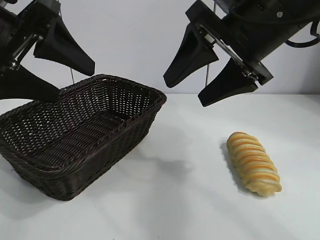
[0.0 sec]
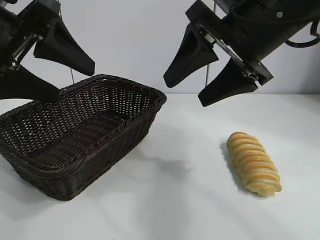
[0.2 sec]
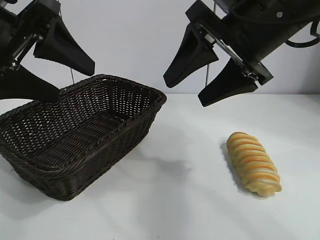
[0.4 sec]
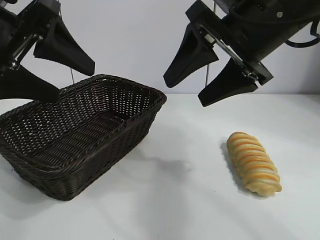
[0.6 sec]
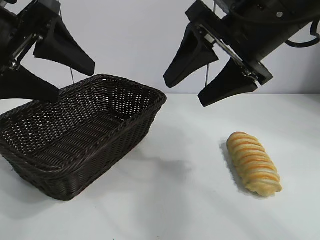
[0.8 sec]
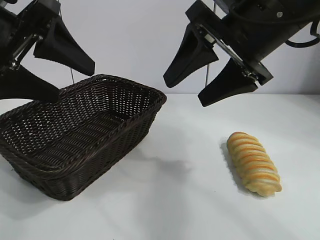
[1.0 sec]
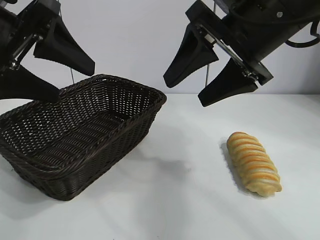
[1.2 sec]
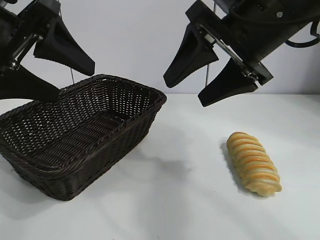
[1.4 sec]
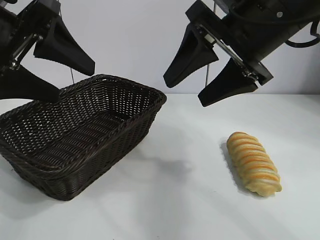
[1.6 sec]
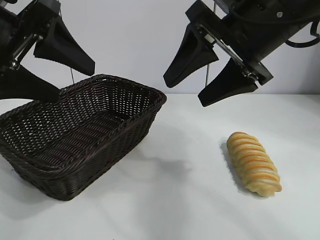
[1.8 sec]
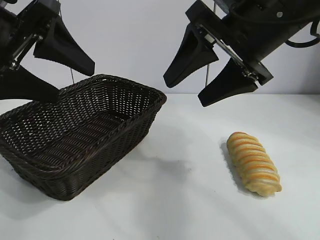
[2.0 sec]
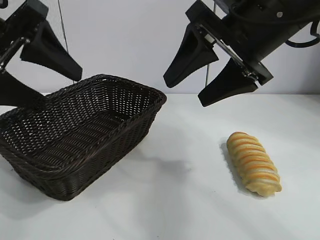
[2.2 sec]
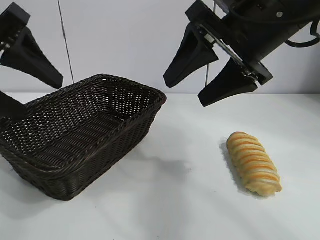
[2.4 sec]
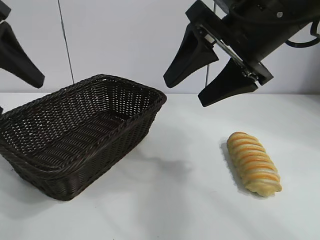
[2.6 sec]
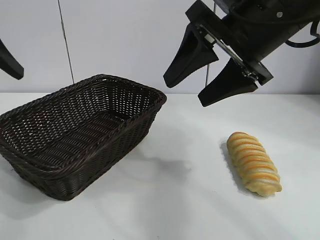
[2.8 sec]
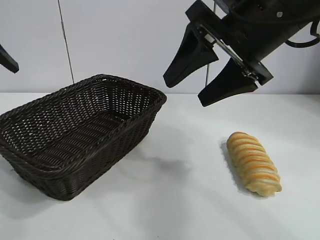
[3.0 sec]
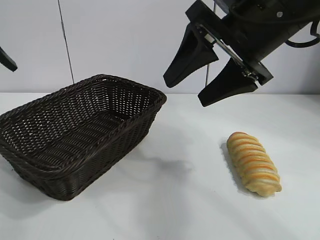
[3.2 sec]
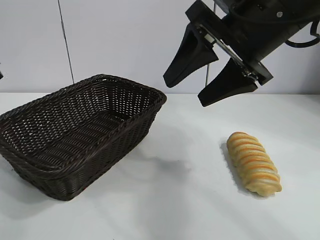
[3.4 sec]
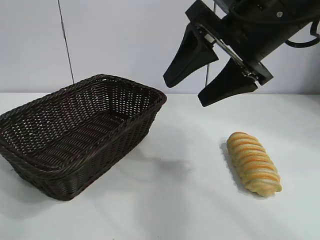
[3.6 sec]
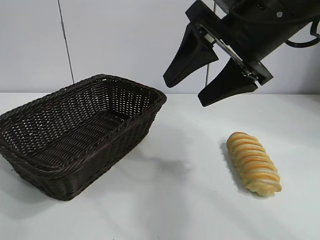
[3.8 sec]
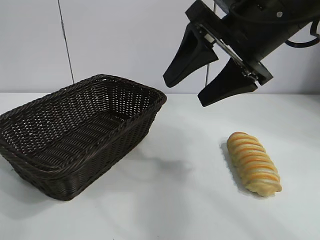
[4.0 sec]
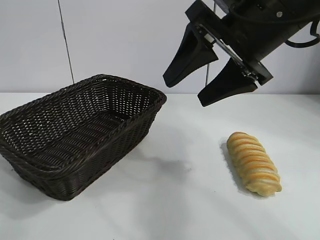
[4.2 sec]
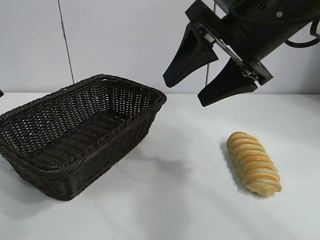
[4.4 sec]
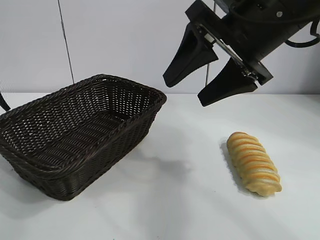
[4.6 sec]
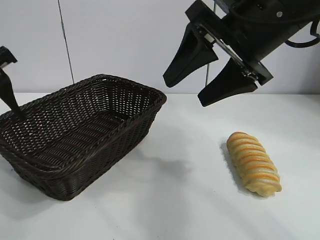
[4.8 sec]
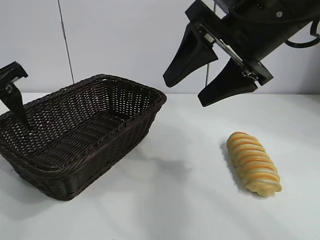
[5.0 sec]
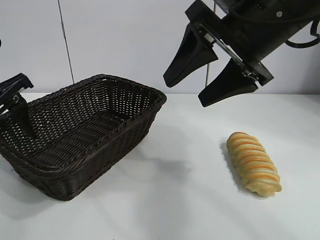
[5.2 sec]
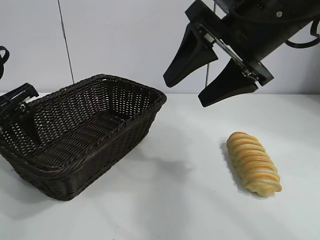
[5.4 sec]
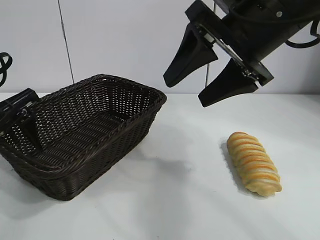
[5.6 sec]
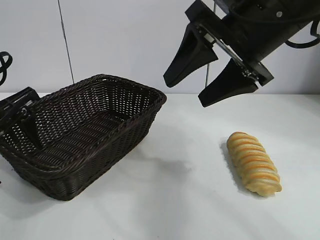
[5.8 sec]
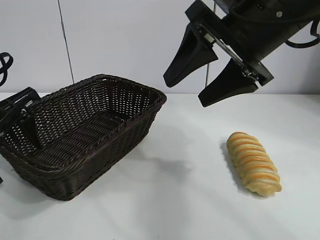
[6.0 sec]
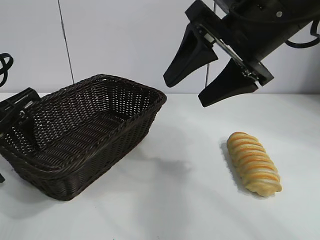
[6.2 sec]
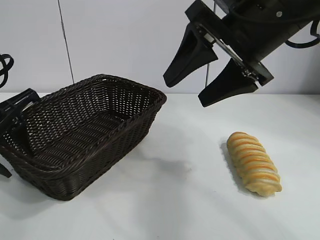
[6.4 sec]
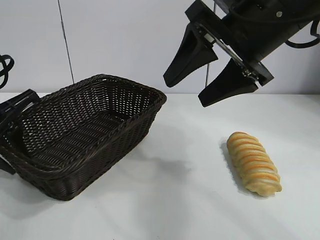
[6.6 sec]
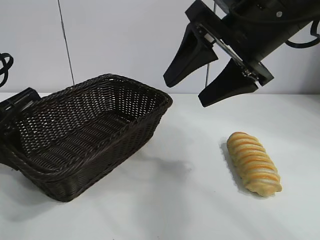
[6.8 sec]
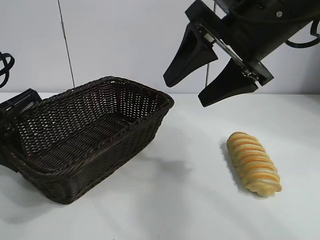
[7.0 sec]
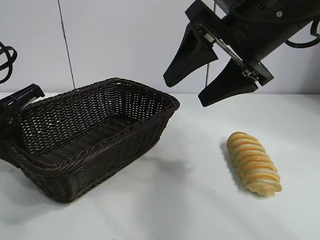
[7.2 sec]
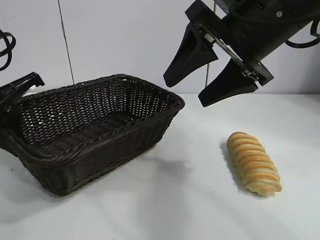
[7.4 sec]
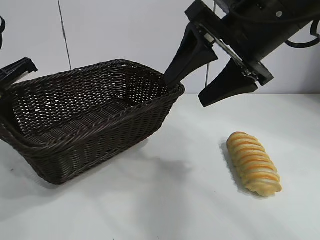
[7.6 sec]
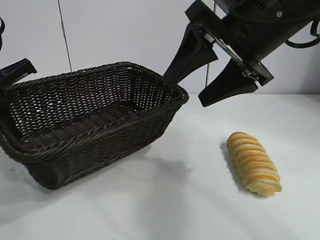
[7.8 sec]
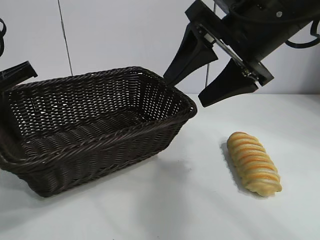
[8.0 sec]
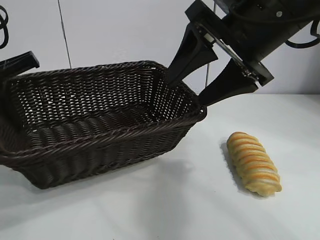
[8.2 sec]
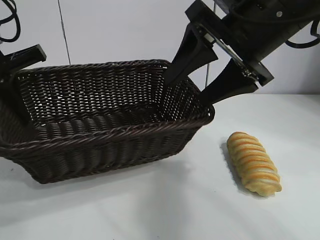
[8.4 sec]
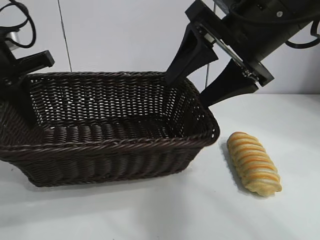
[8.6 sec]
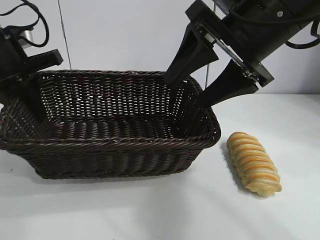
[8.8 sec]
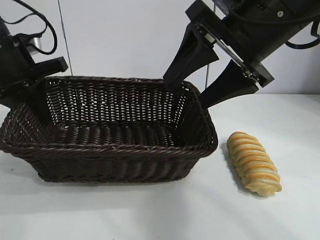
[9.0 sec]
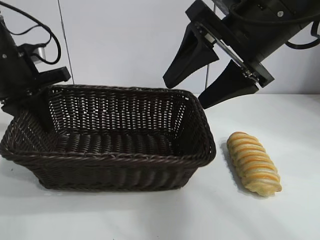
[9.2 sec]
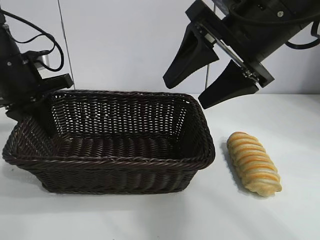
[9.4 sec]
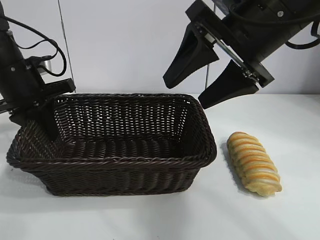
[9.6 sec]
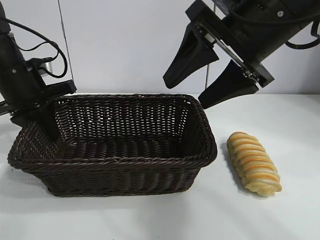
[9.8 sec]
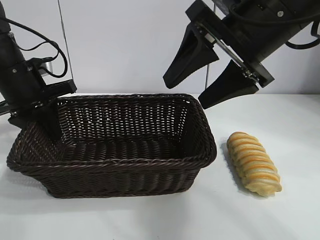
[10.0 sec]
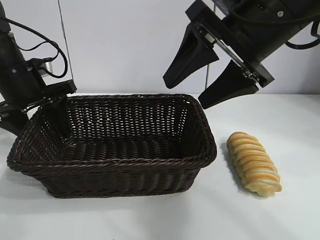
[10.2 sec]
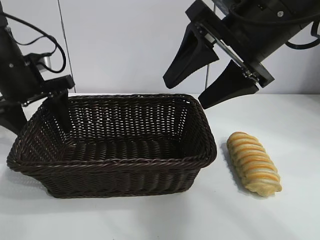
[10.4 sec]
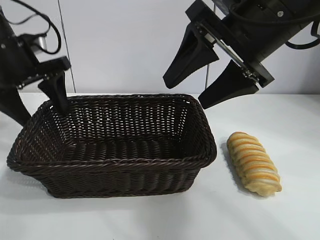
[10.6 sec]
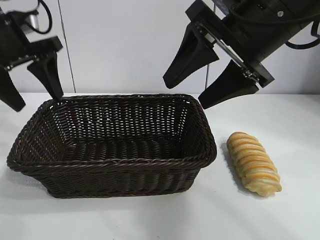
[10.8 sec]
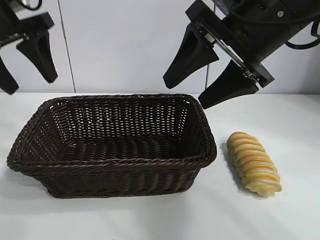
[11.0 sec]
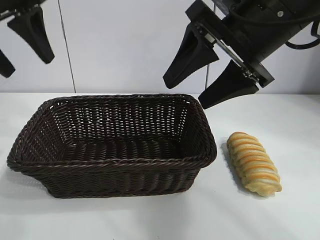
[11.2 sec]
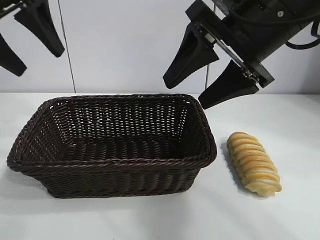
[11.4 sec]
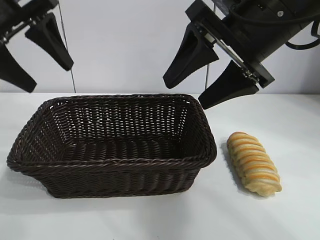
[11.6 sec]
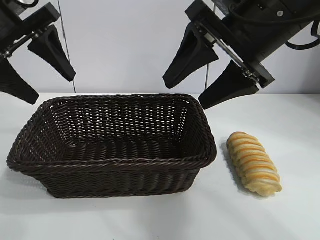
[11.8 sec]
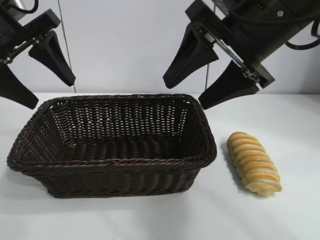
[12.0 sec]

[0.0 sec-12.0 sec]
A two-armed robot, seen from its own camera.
Task of the whole recording: pick up the long bread and put it into the basket.
Step, 2.0 sec to 6.8 sec: Grasp the basket with the left gripper.
Step, 7.2 sec to 10.2 sec: Place the basket in the center of the table with the left gripper.

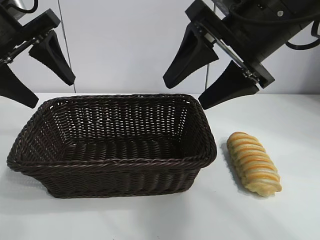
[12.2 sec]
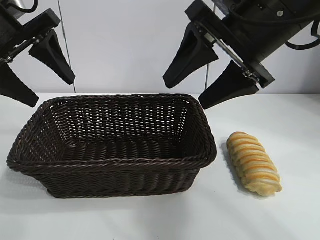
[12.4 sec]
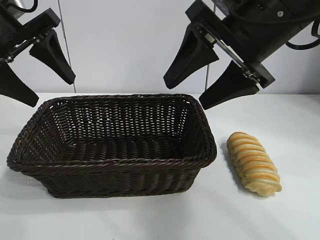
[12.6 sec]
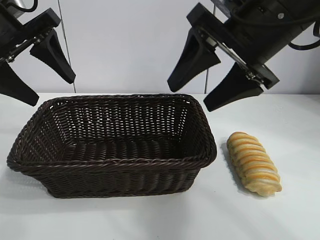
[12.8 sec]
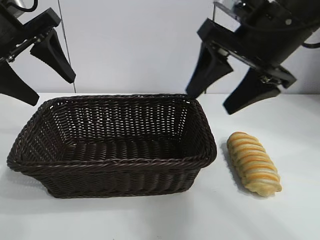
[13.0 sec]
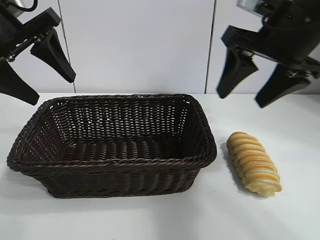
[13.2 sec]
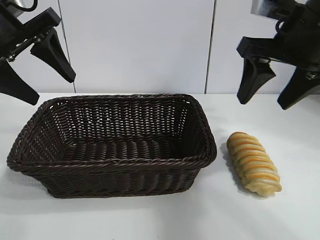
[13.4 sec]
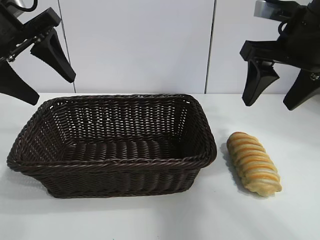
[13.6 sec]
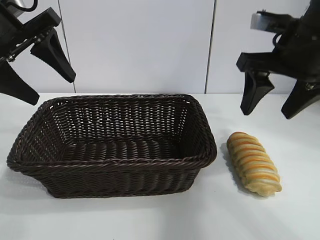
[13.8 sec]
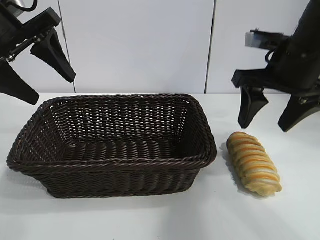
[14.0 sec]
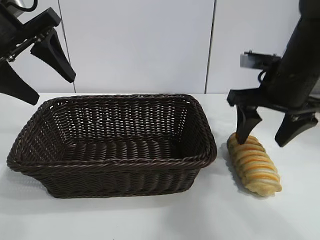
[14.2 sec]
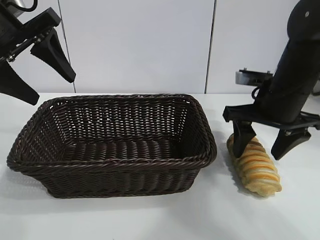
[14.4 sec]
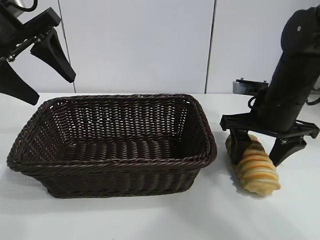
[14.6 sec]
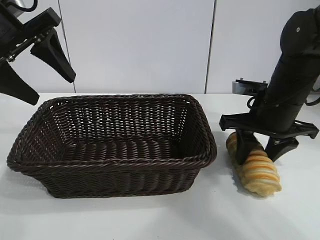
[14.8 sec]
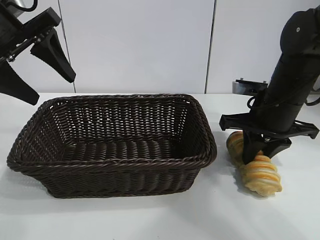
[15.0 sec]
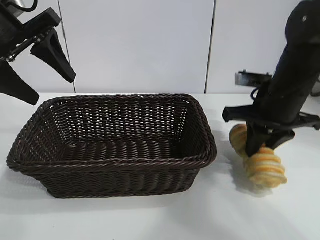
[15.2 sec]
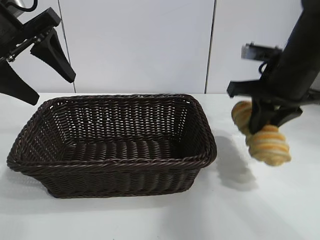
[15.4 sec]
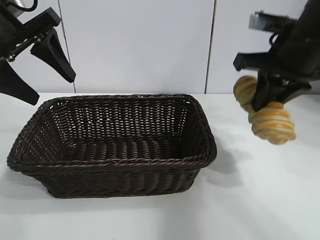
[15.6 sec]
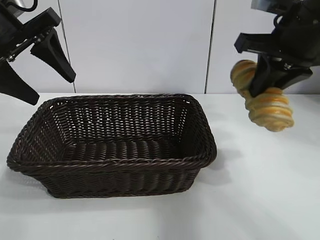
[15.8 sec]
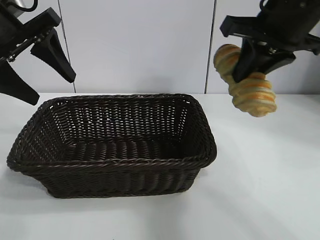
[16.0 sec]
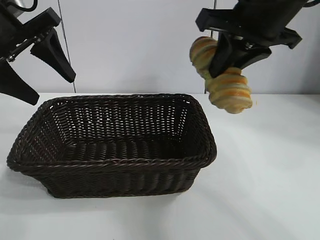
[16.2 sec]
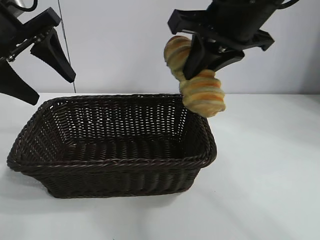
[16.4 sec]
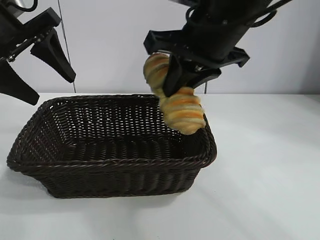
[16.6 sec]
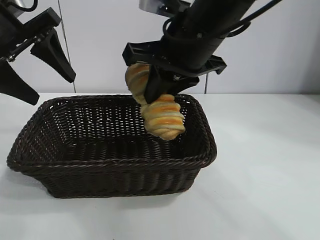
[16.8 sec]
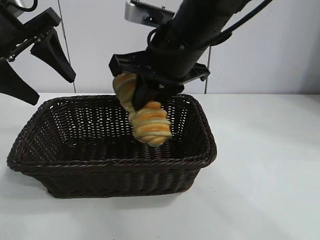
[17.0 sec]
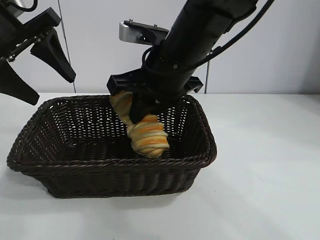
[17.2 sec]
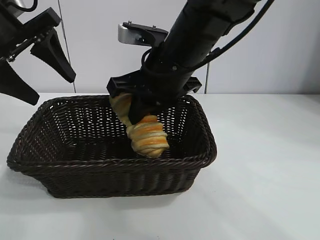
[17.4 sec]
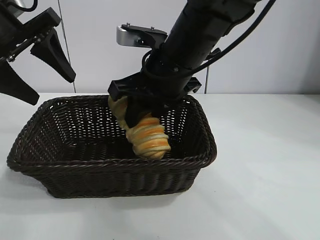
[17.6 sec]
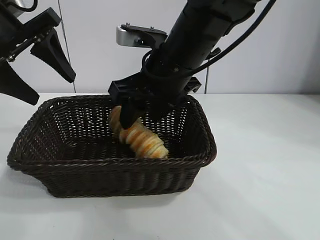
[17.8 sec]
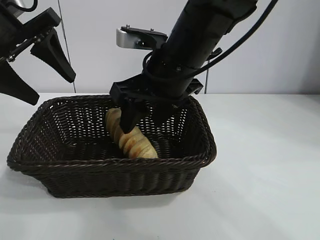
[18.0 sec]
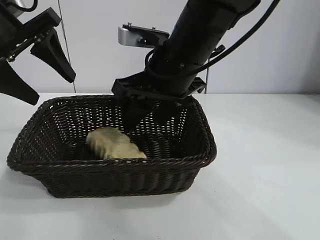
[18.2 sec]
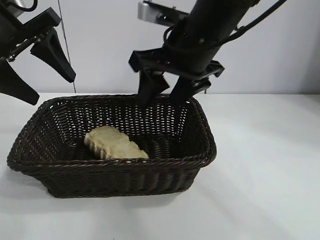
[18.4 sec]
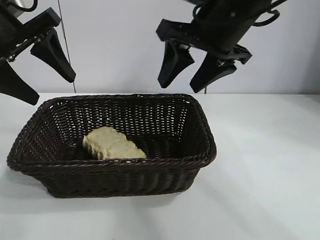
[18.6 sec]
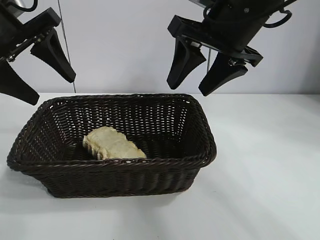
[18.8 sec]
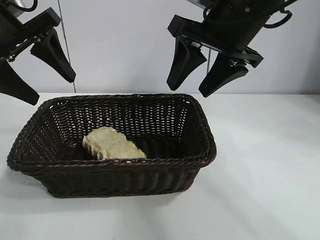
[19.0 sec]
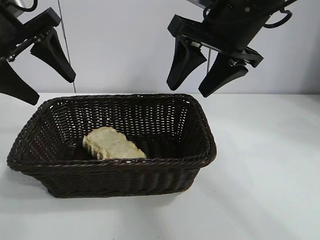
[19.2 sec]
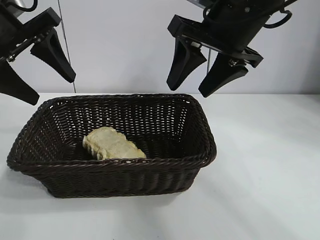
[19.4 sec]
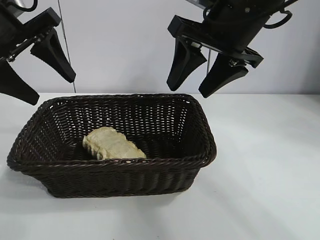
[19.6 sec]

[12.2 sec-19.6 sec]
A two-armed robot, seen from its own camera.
Task of the whole recording: pick up the long bread and put it into the basket.
Step, 12.2 sec to 15.0 sec: Grasp the long bread with right gripper.
Step, 15.2 sec to 18.0 sec: Place the long bread in the basket with right gripper.
